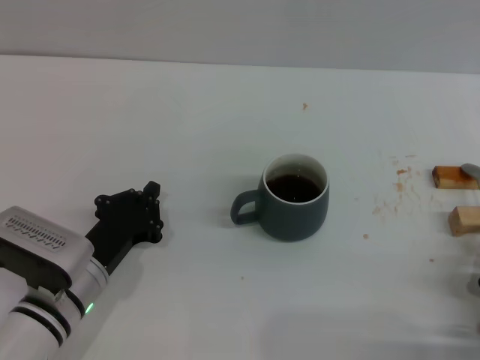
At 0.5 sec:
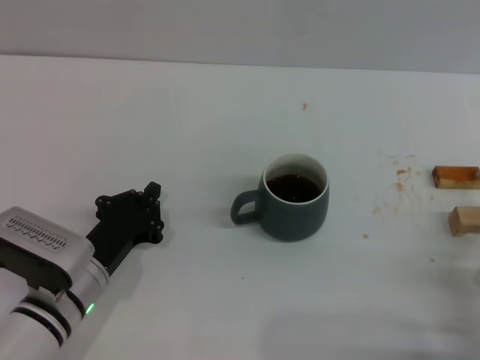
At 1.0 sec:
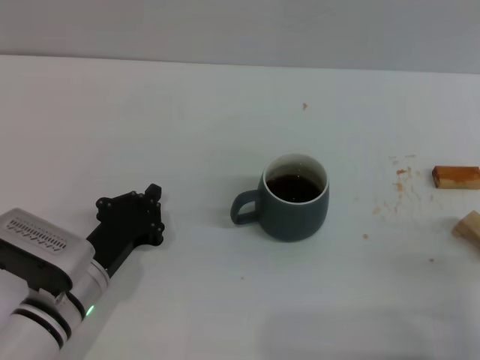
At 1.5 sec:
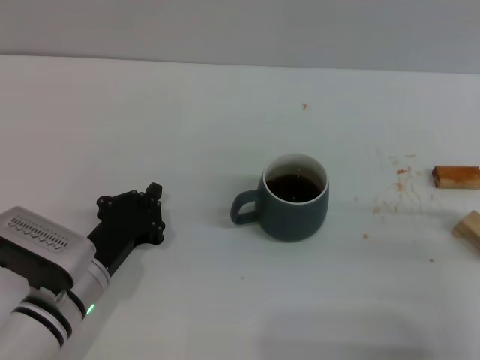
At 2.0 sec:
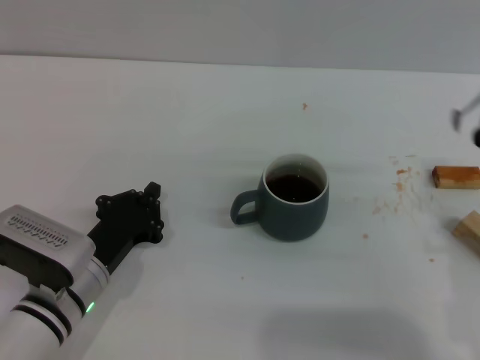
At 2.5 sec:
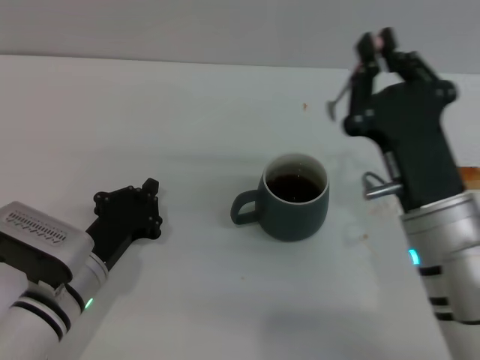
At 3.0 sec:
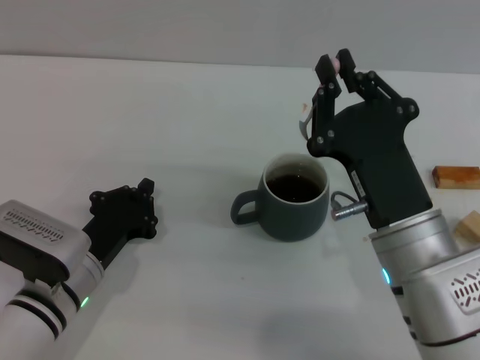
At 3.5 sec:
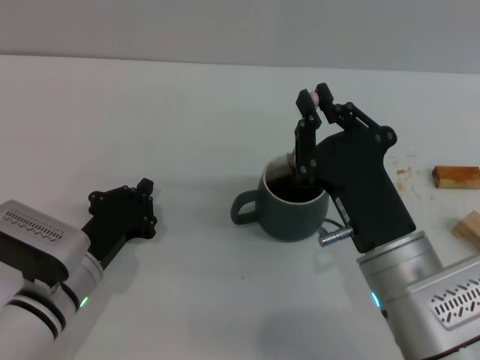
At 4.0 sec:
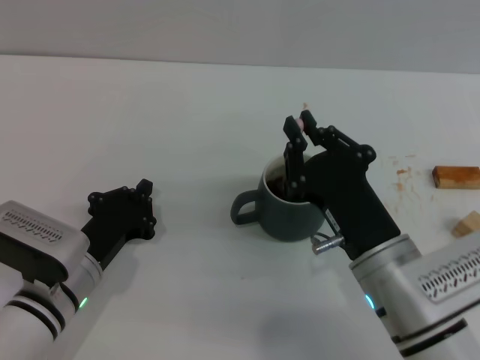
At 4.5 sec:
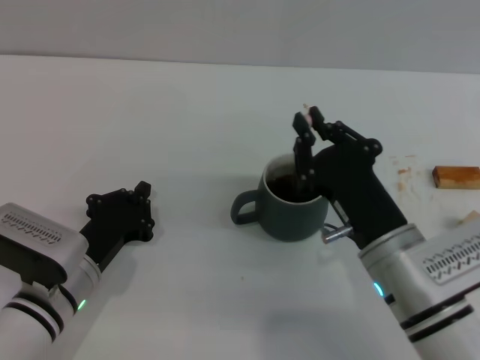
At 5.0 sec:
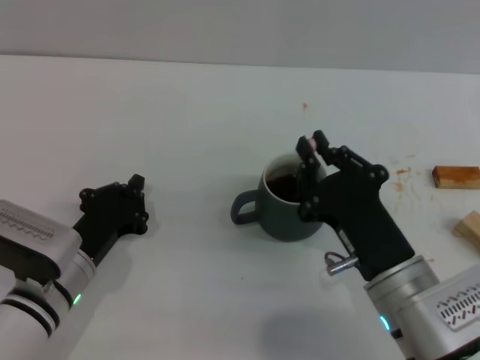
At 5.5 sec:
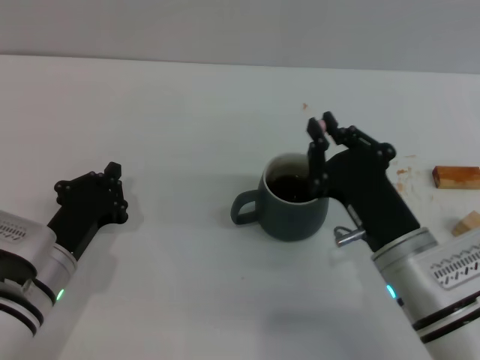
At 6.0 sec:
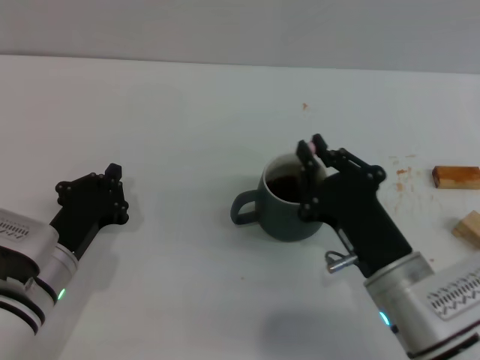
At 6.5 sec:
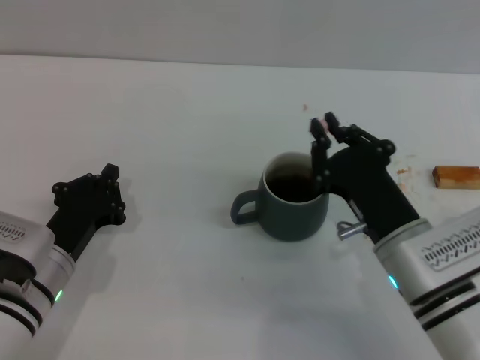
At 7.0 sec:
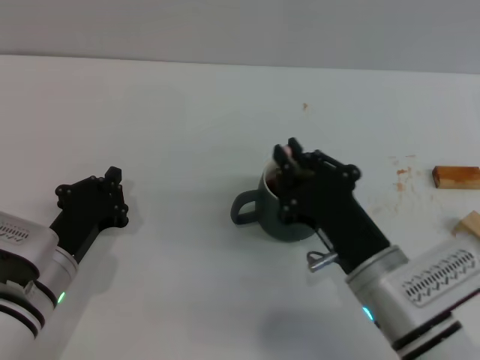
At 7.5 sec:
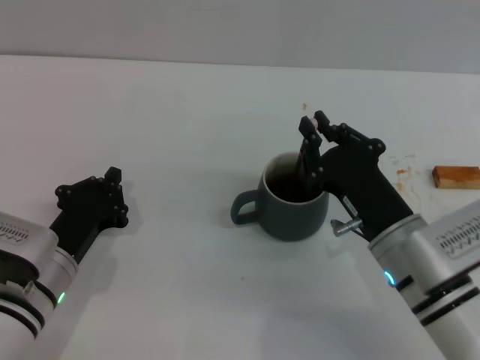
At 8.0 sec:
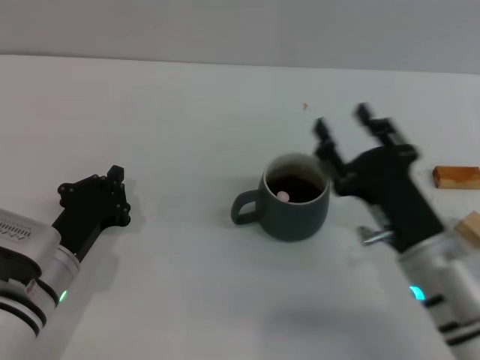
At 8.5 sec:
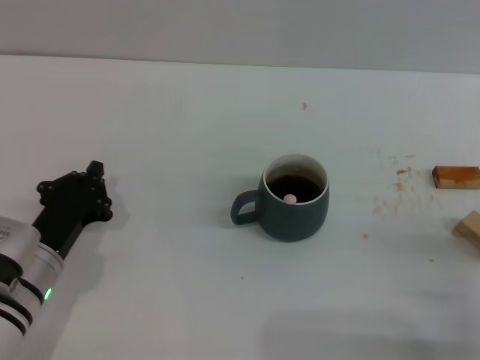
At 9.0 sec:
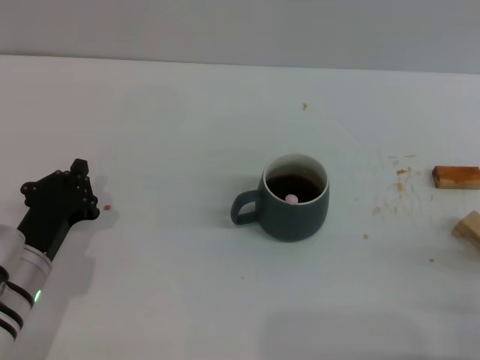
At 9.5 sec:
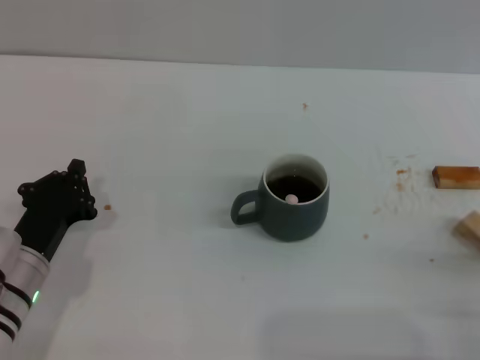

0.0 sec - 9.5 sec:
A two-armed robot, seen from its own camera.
Task of the whole recording: Move the grey cup to the center, lift the pink spoon, stir it three times in the cup, and put the spoon into the cup.
Step, 0.0 sec - 2.0 sec: Pick up the spoon with the right gripper.
Step, 2.5 sec - 7.5 sec: Stir the coffee in the cup with the right gripper.
0.0 sec - 2.0 sec: The right gripper is displaced upward, forward and to the left by about 15 cm.
2.0 sec - 4.0 sec: The right gripper heads to the left, covering roughly 10 cm.
4.0 sec - 7.5 sec: The grippers stay close to where they were, moving slightly.
7.5 sec - 9.5 sec: The right gripper goes some 20 cm to the right and backward, and opens.
